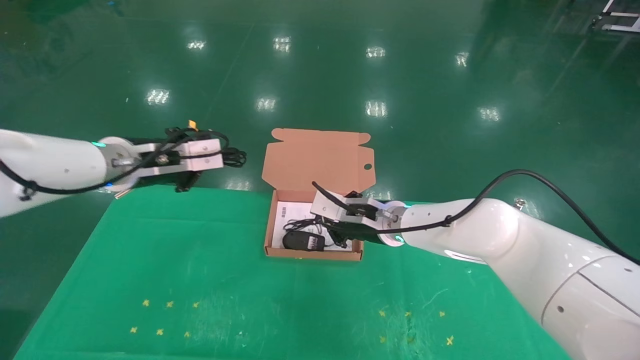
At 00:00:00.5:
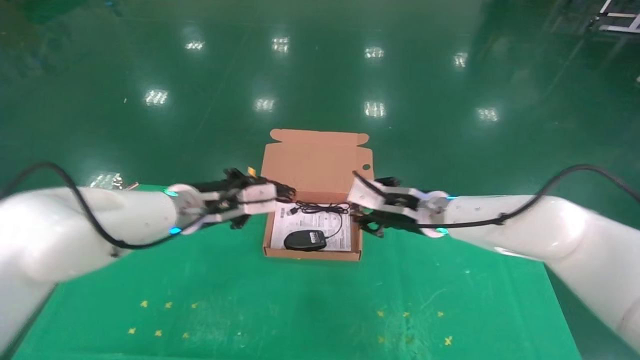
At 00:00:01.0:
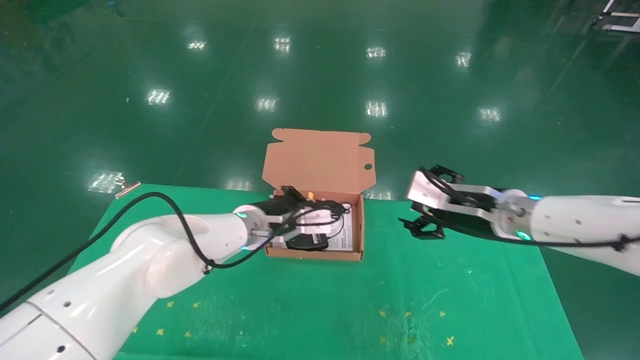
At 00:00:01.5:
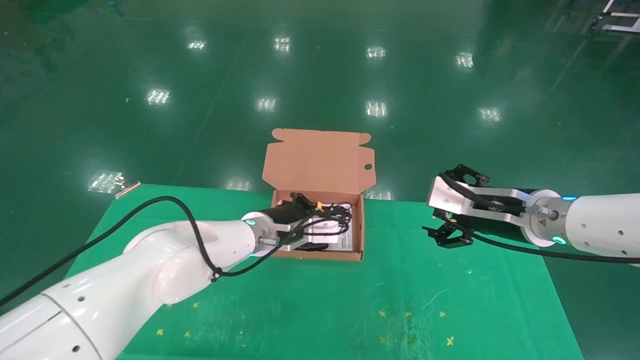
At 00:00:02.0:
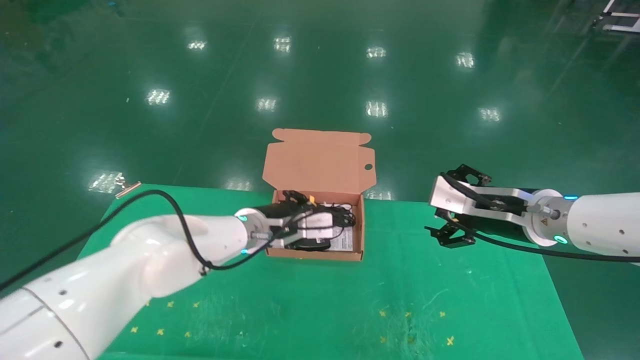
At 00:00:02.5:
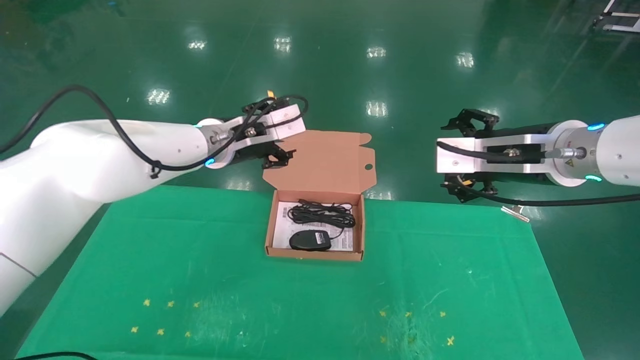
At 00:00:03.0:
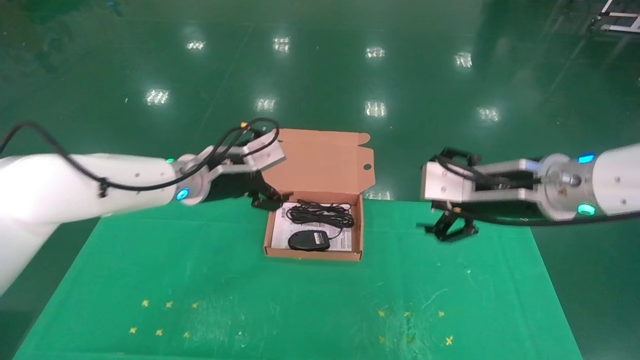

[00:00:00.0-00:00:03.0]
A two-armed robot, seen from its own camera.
Task of the whole recording: grasp data cable left put into box grasp mouse right put into box.
Step, 00:00:00.0 to 00:00:02.0: Place the mouse and power cord into the box.
00:00:00.0 to 00:00:01.5: The right gripper goes approximately 20 cm to the right and backward, and opens, while the left gripper goes some 20 cm to the right and downward.
00:00:01.5 to 00:00:03.0: The left gripper moves to the left and upward, some 15 cm, and opens, while the right gripper shifts by roughly 5 cm.

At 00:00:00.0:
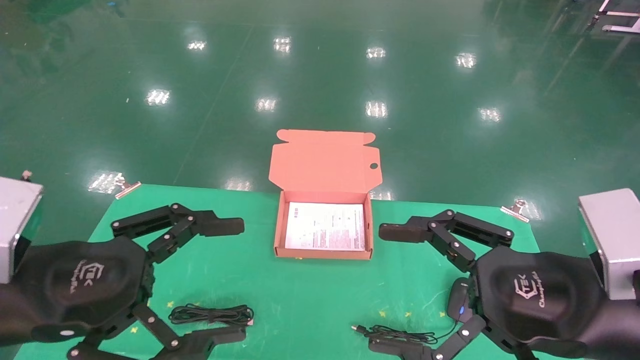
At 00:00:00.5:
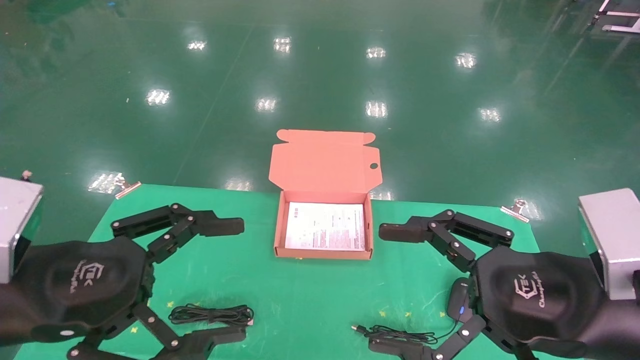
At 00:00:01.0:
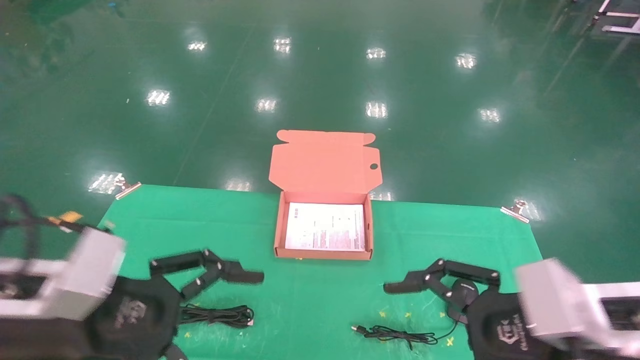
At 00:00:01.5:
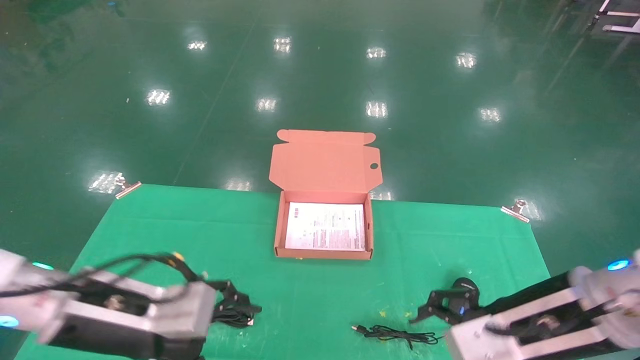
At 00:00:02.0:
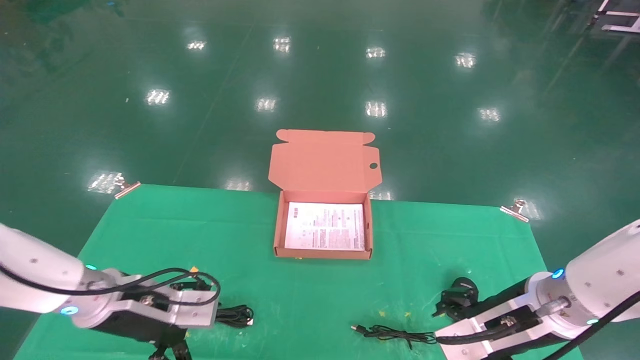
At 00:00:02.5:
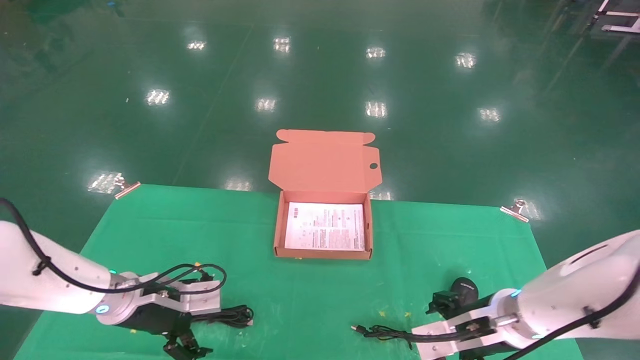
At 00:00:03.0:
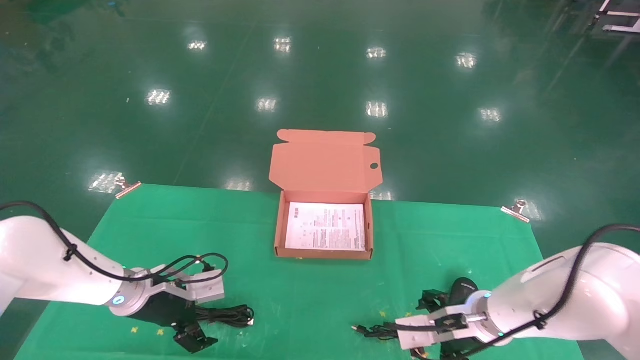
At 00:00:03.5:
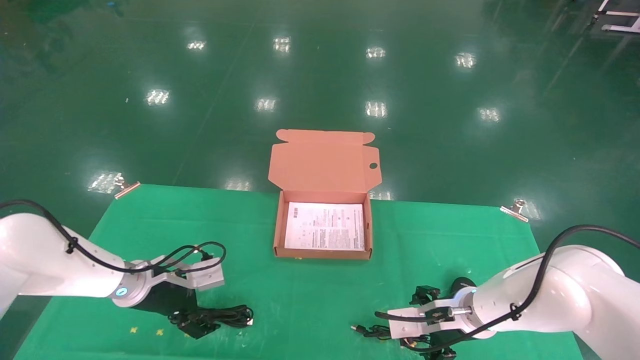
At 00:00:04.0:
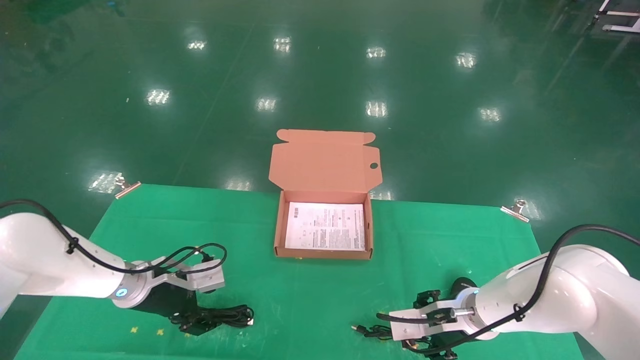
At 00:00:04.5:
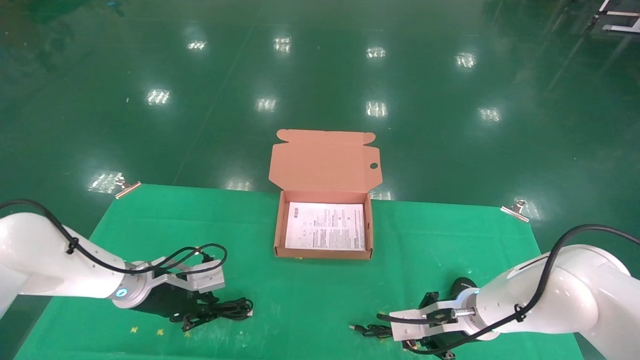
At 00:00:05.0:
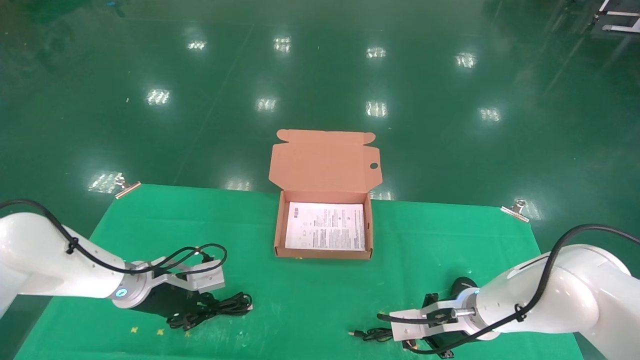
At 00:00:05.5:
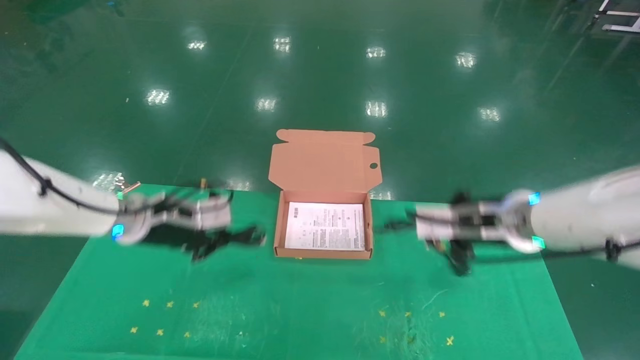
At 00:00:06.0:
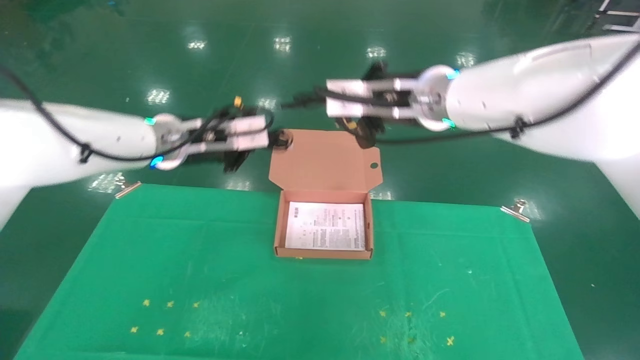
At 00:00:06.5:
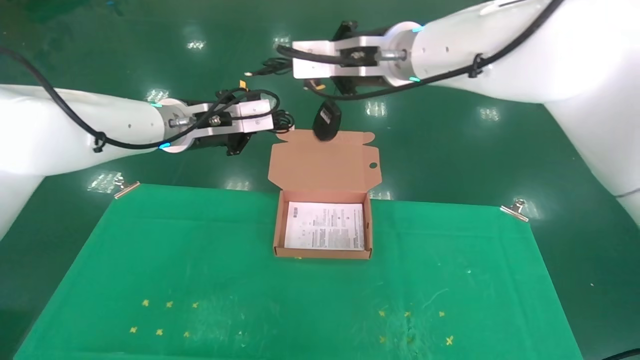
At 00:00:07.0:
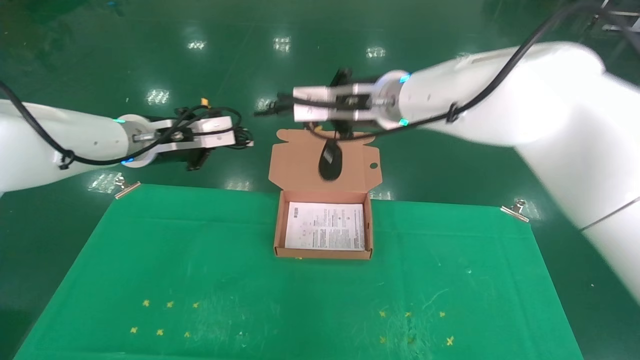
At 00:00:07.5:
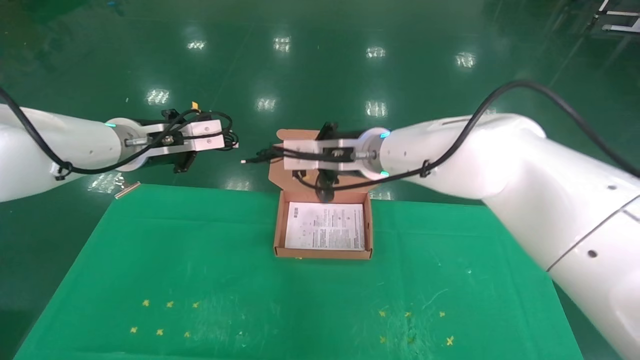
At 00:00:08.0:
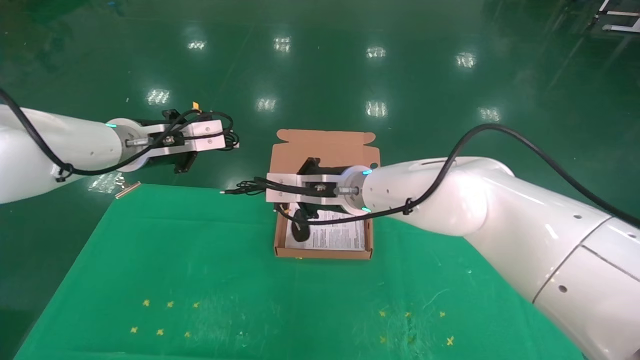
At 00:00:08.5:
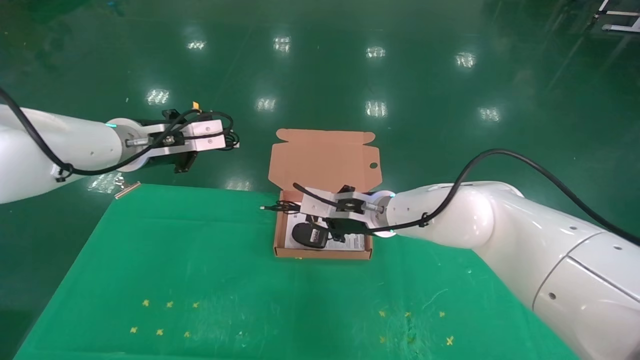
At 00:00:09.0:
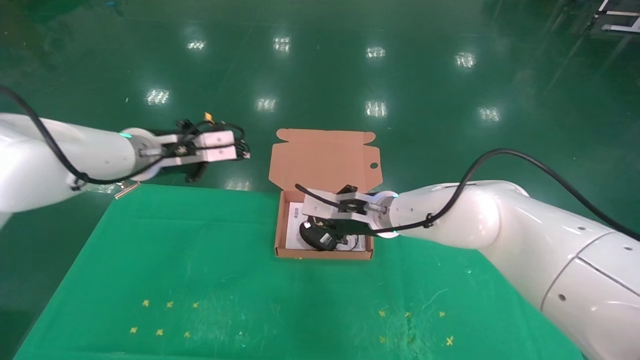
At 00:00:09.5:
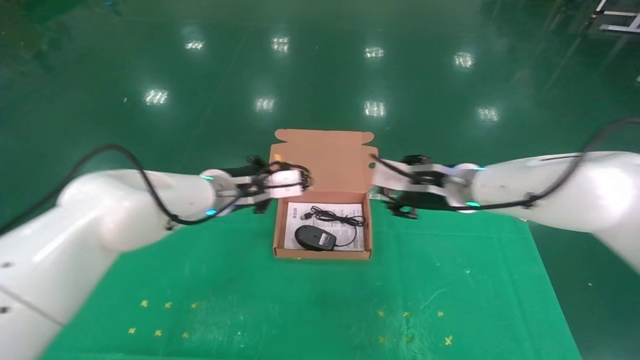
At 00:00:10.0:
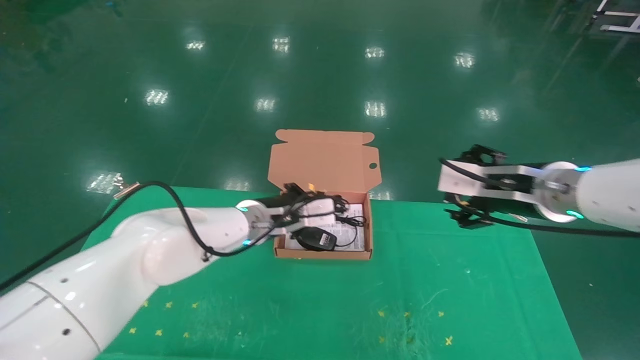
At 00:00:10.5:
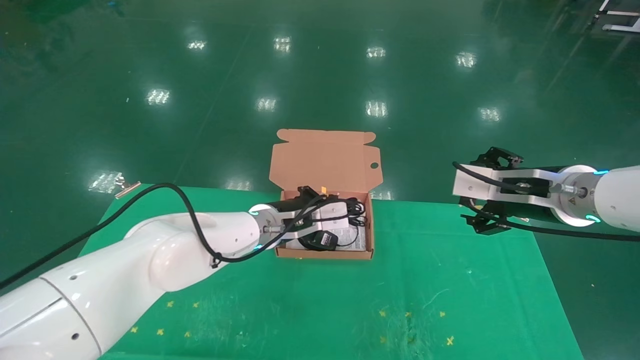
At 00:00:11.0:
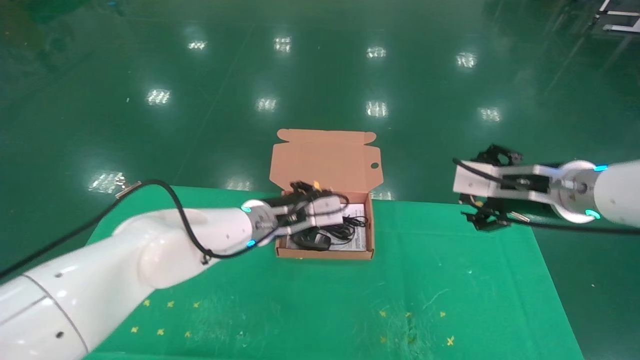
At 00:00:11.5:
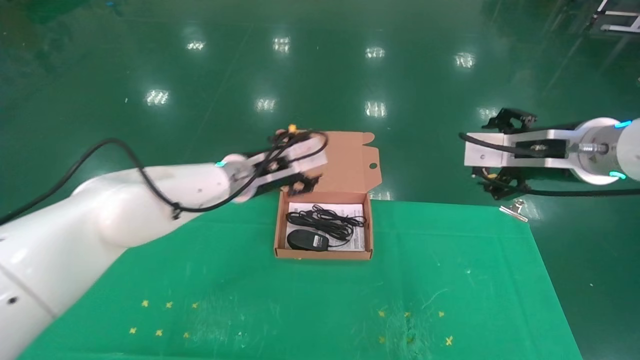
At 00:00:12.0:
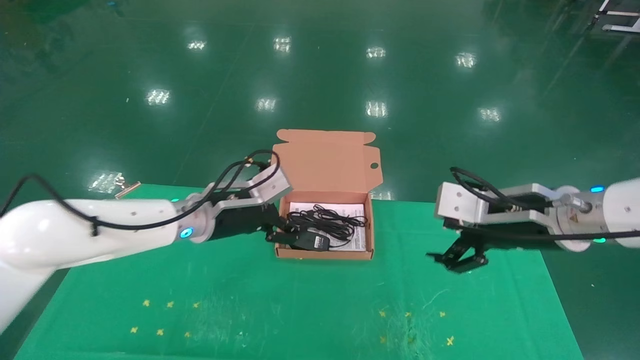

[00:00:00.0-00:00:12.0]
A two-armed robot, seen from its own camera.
Task of the whole recording: grasp data cable left put into box grasp mouse right put into box.
Step, 00:00:01.0 to 00:00:05.0: Grab and pick up both the mouse and power cord from the accessory packaging area at the same time.
Step, 00:00:05.5 to 00:00:11.0: Place the mouse and power cord into the box.
00:00:00.0 to 00:00:02.0: The grippers both shift forward and downward by about 15 cm.
00:00:02.0 to 00:00:04.0: The left gripper heads forward, covering roughly 10 cm; the right gripper travels forward and downward by some 10 cm.
00:00:04.0 to 00:00:06.0: Both grippers travel together upward, about 25 cm. The right gripper closes up; the left gripper closes up.
00:00:06.0 to 00:00:08.0: The left gripper moves to the left, some 5 cm; the right gripper heads downward and to the left, covering approximately 15 cm.
00:00:08.0 to 00:00:10.0: The right gripper is displaced to the right by about 25 cm, and opens up. The left gripper heads to the right and downward, covering roughly 20 cm.
00:00:10.0 to 00:00:12.0: The left gripper is displaced to the left by roughly 10 cm, and opens up.
